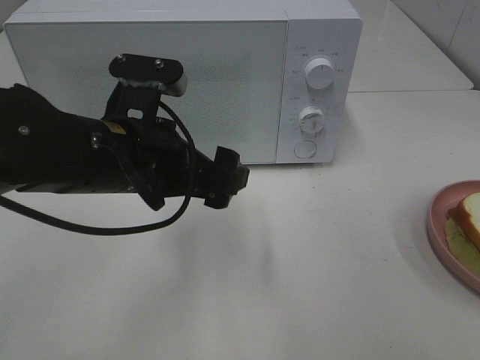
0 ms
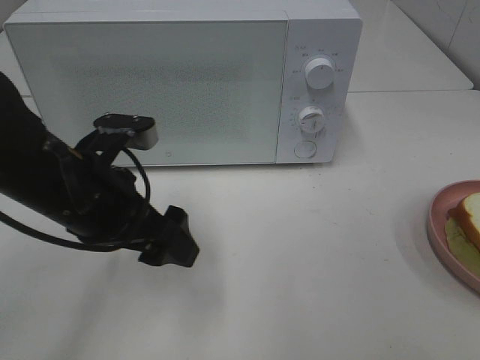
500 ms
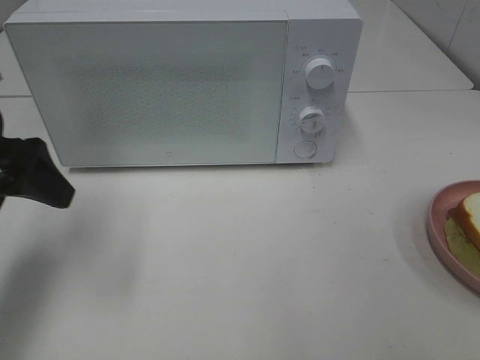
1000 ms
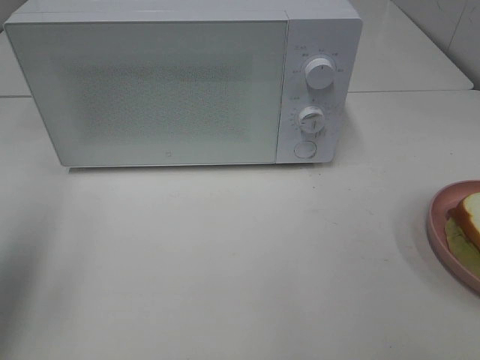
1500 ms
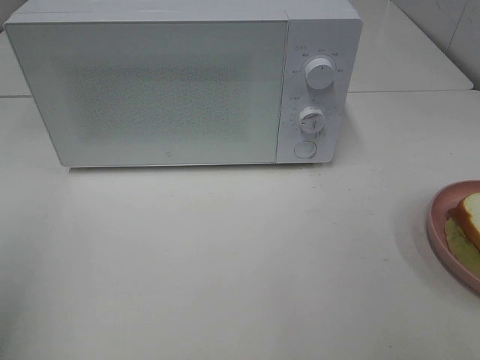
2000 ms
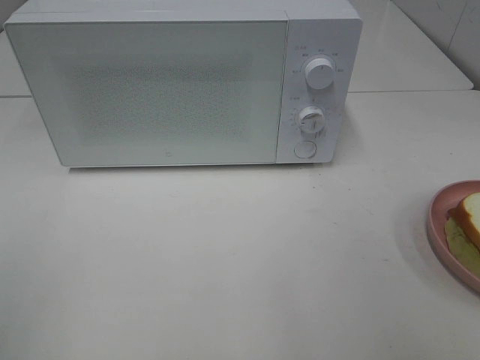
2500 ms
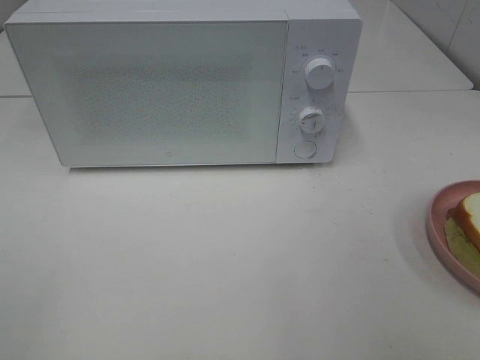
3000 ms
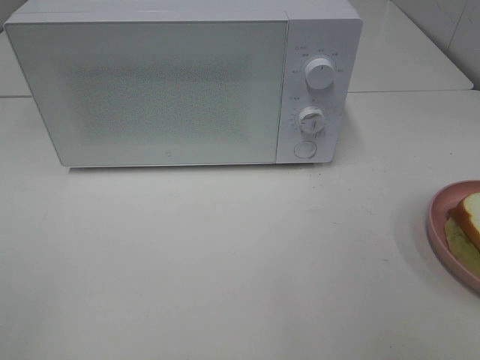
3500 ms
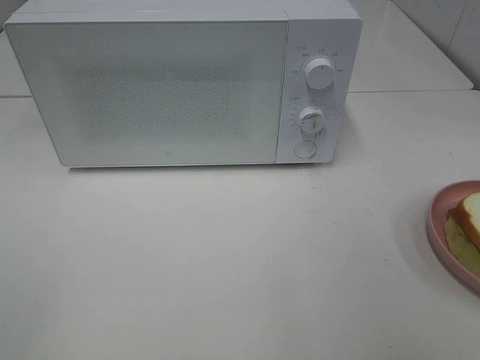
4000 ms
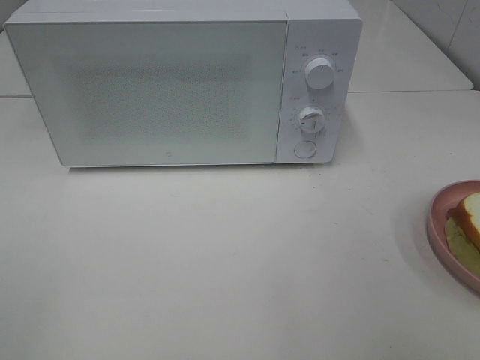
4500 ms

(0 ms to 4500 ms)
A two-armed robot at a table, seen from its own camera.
Task of the whole recording: Heat Sandwich.
0 ms - 2000 ms: The left gripper is displaced to the left, backward and upward by about 30 cm.

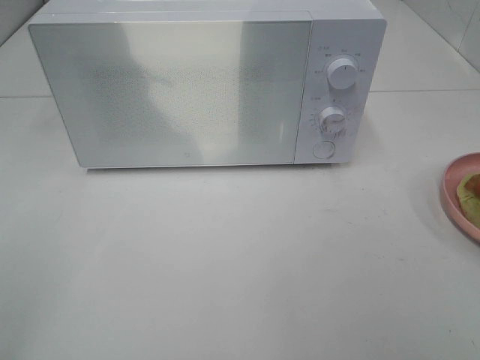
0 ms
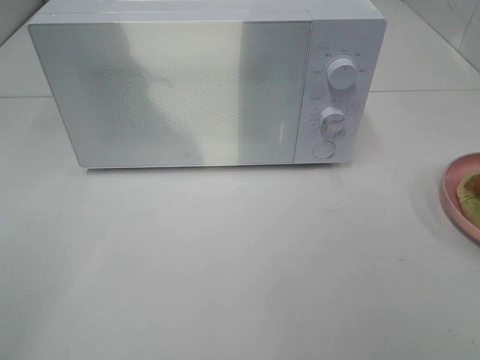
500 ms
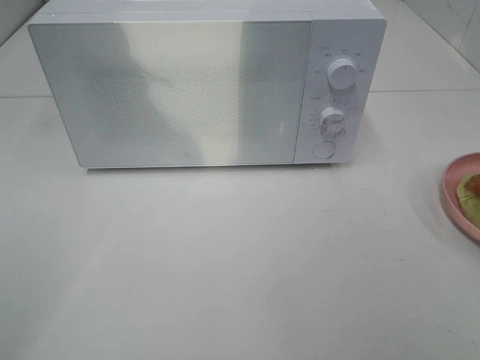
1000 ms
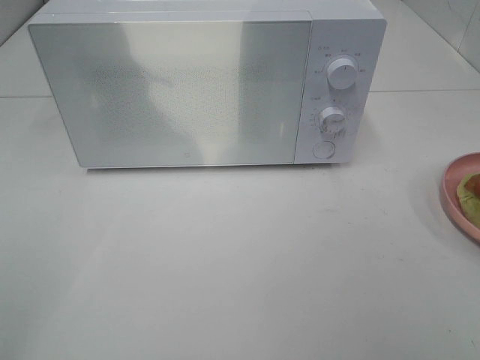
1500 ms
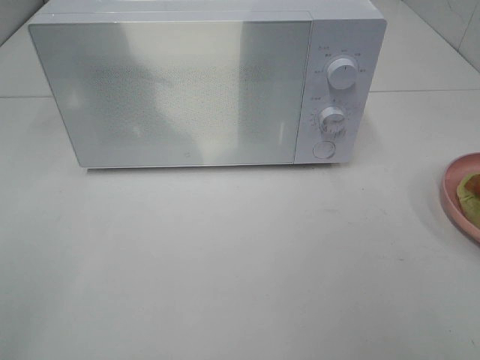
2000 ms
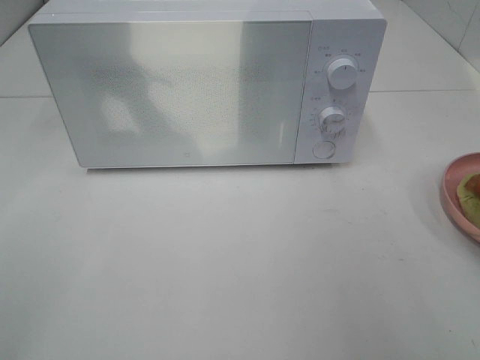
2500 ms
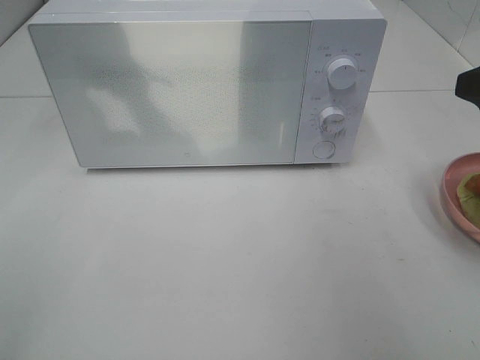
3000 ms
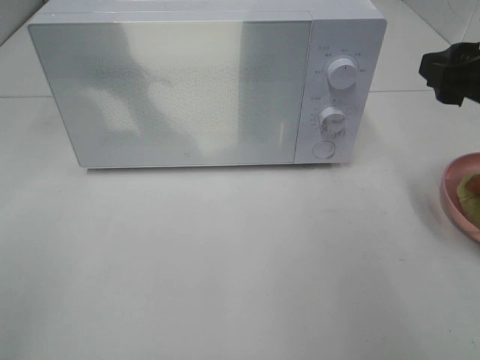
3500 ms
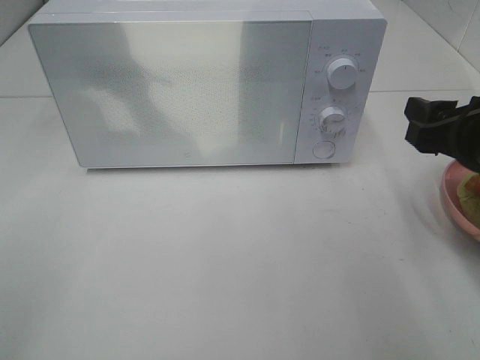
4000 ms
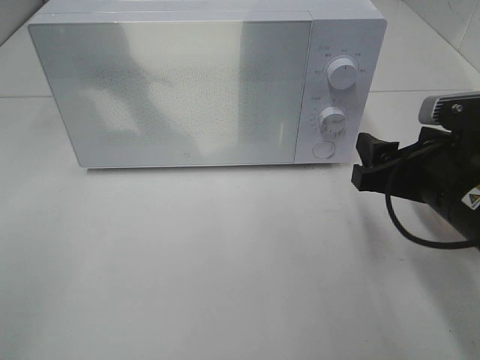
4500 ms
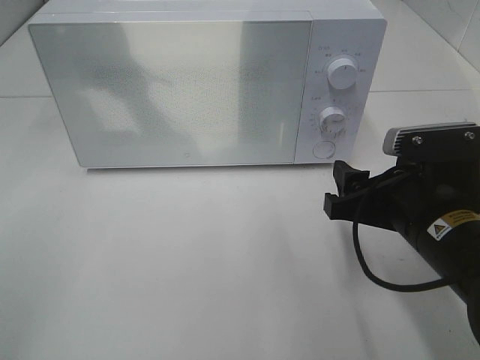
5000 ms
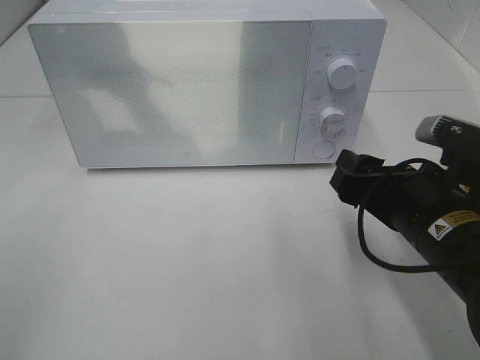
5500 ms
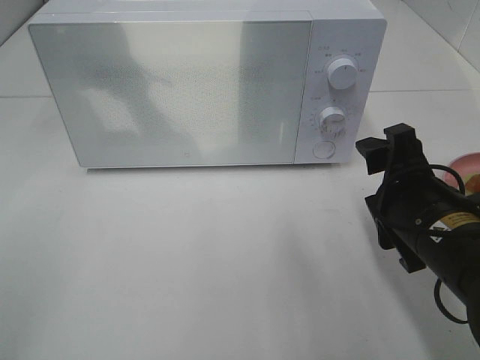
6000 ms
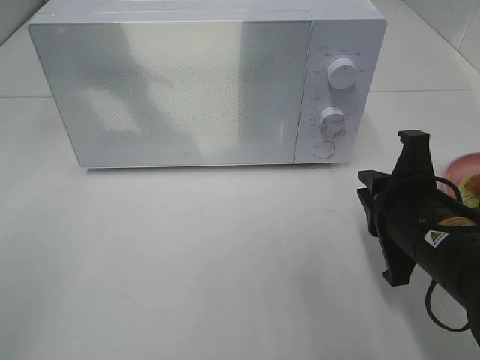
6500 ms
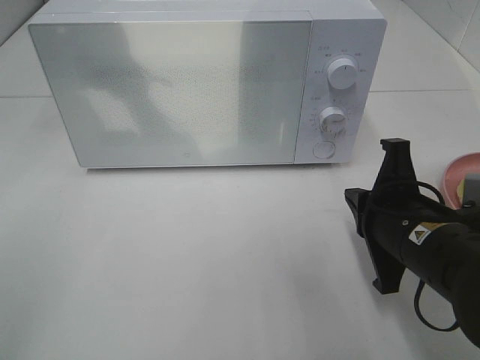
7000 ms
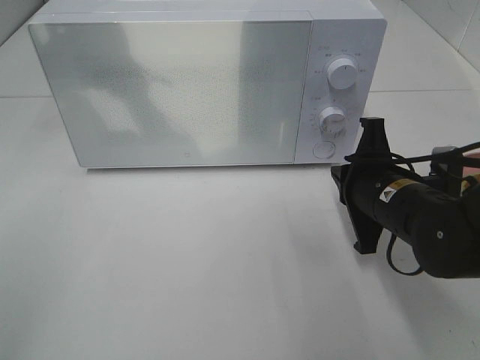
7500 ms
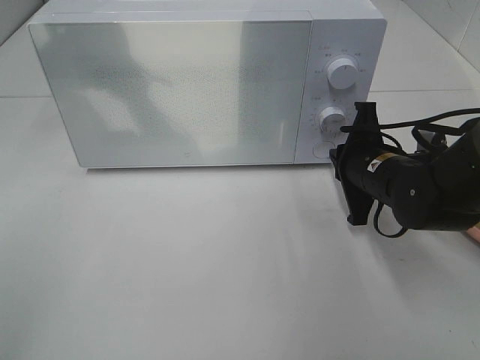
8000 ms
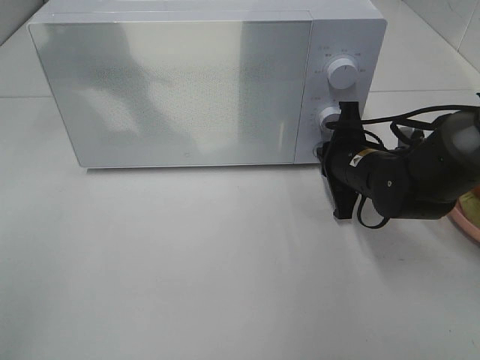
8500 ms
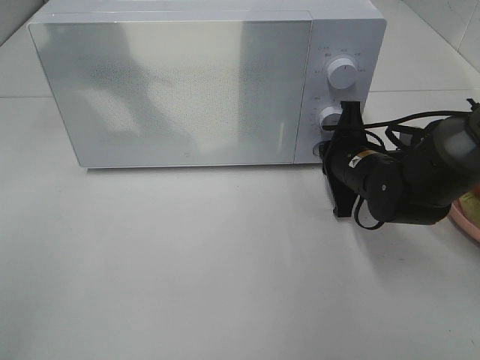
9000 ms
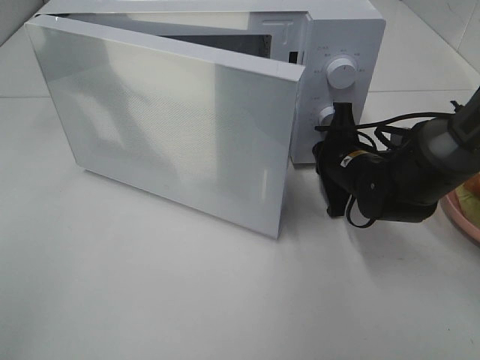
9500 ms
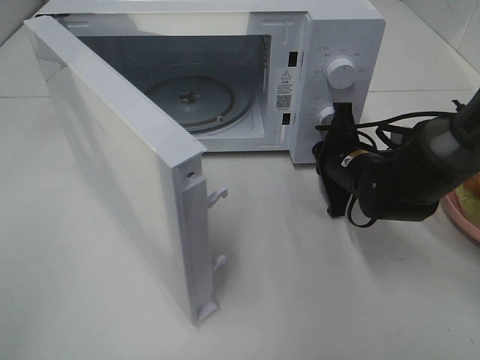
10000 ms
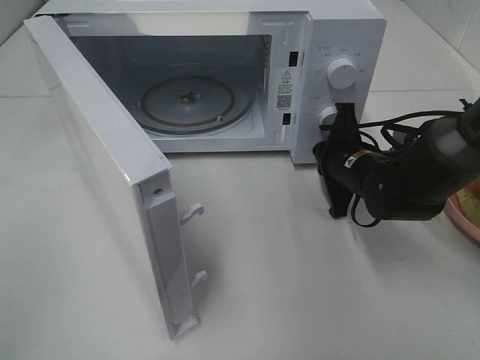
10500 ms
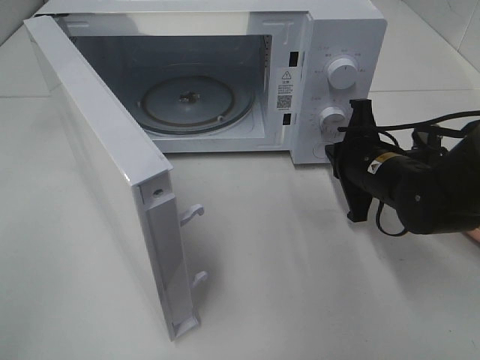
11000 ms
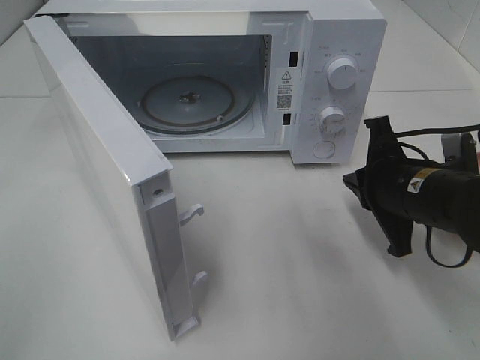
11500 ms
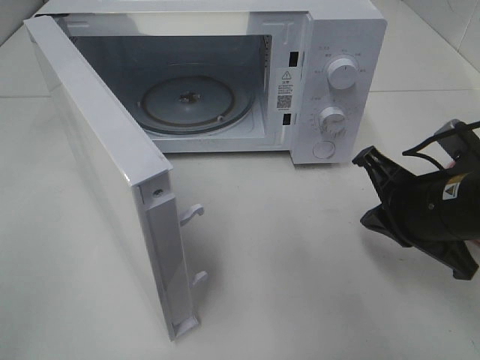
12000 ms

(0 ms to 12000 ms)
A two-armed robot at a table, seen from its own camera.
Task of the whole recording: Heat Sandwich.
Step, 0 ms - 11000 ms: Right hand: press the switch.
2000 ms - 4000 ms: The right gripper moves forward and downward, roughly 20 cm.
4000 ms - 6000 ms: The right gripper heads to the left and downward, covering about 10 cm.
6000 ms - 8000 ms: The right gripper is displaced forward by about 10 cm, and closes up.
10000 ms - 12000 ms: The right gripper is displaced backward and upward by some 15 cm.

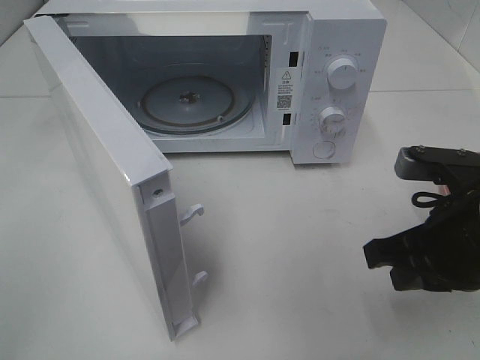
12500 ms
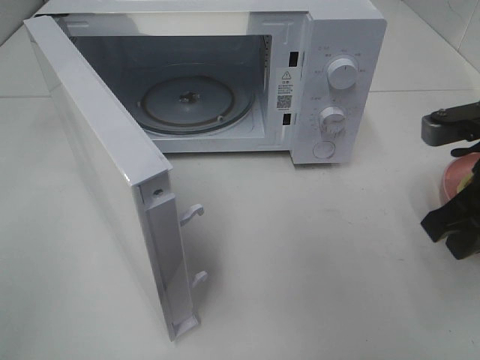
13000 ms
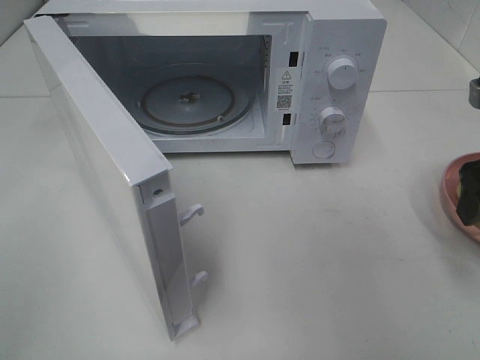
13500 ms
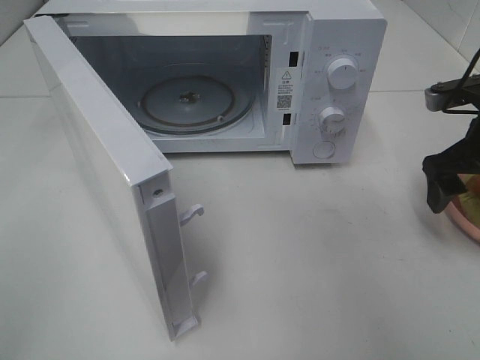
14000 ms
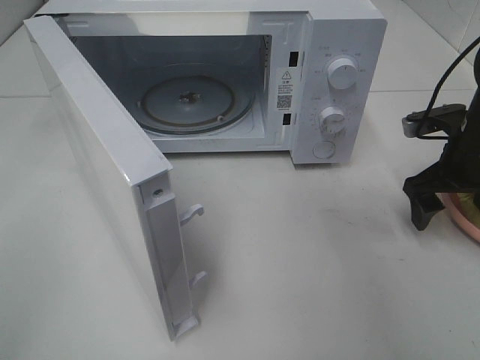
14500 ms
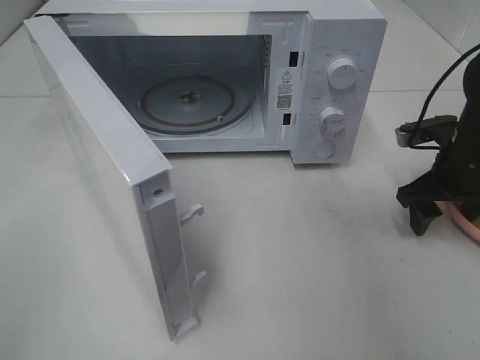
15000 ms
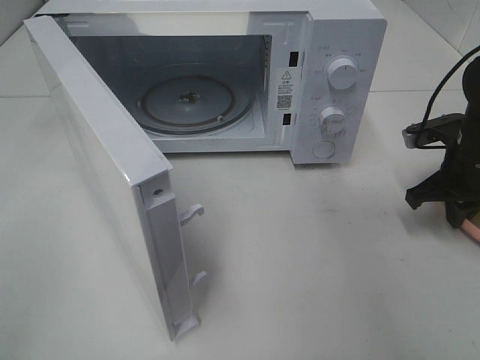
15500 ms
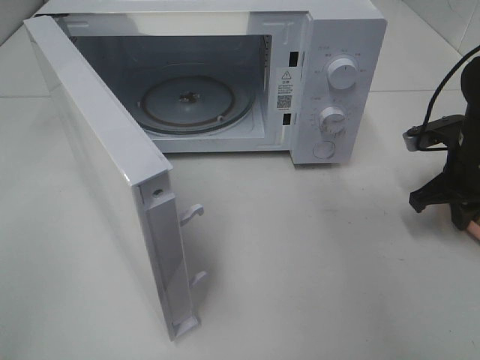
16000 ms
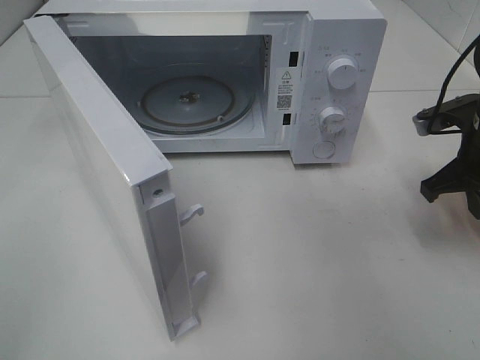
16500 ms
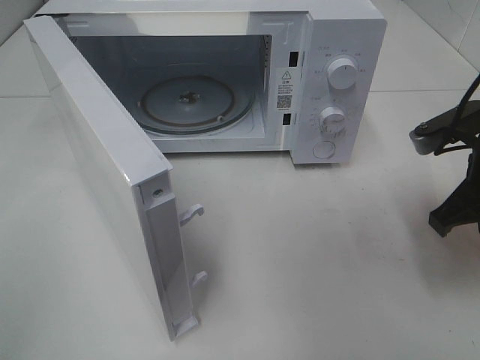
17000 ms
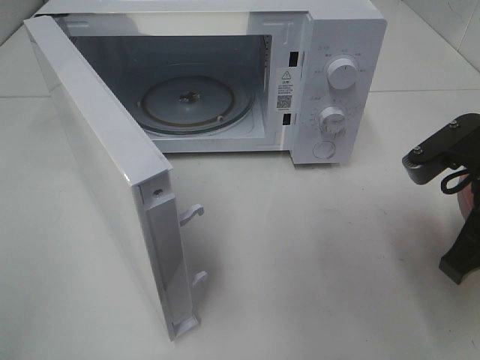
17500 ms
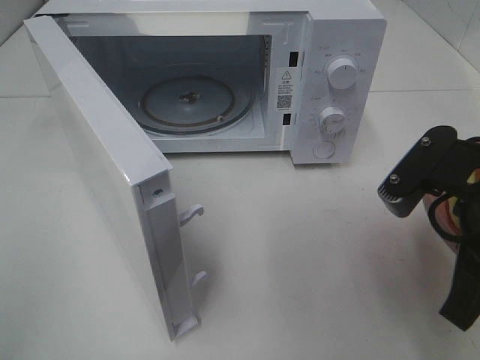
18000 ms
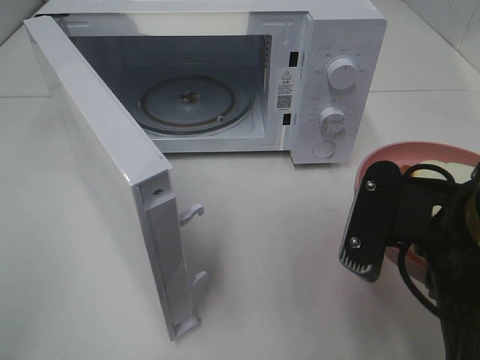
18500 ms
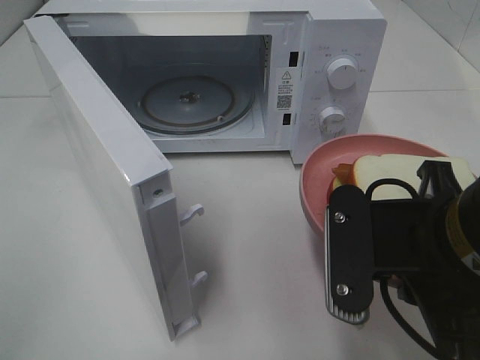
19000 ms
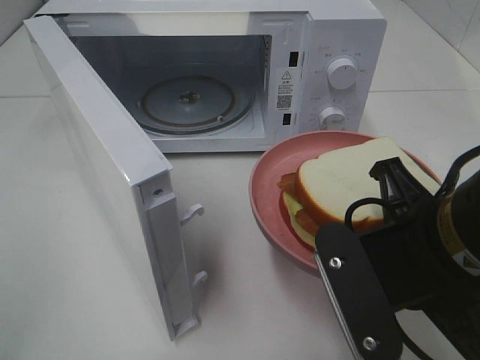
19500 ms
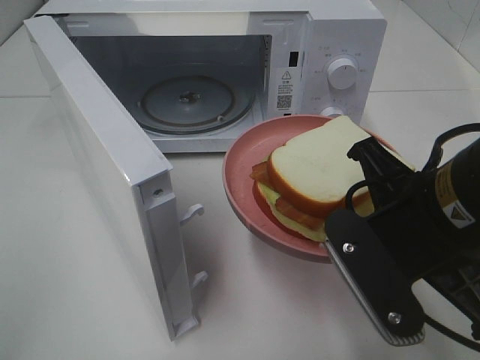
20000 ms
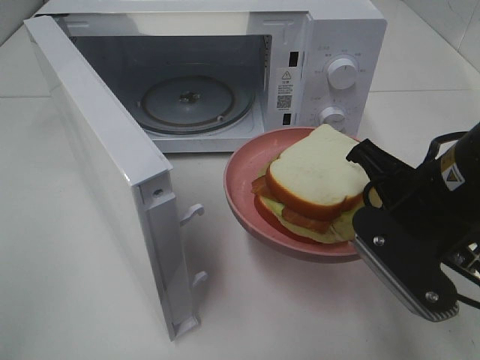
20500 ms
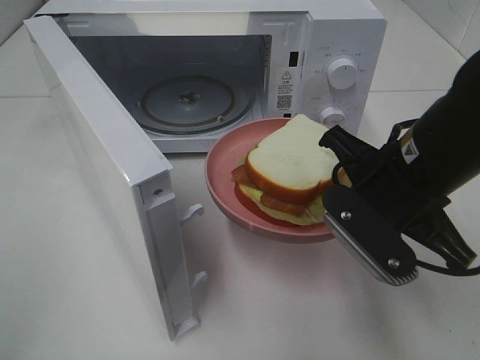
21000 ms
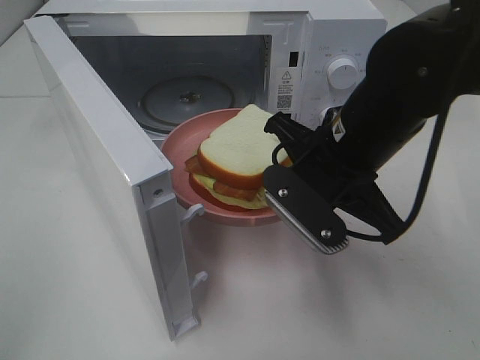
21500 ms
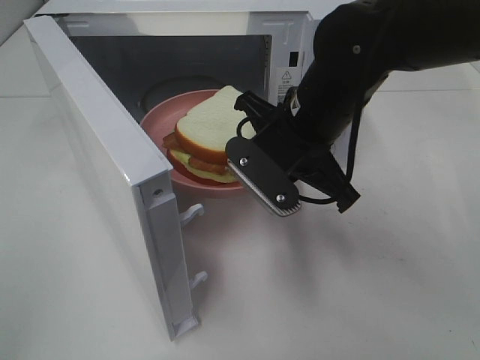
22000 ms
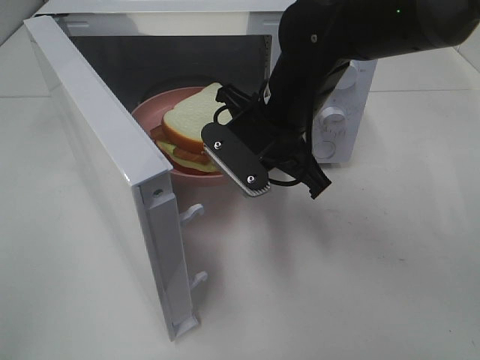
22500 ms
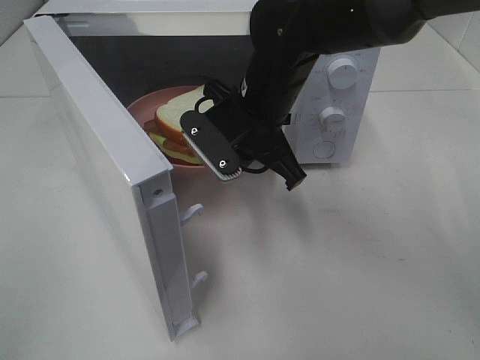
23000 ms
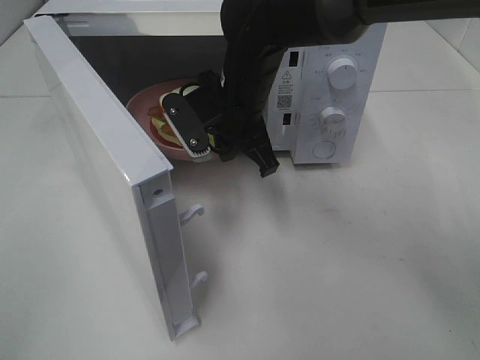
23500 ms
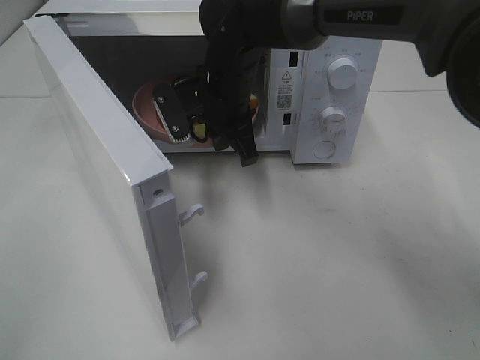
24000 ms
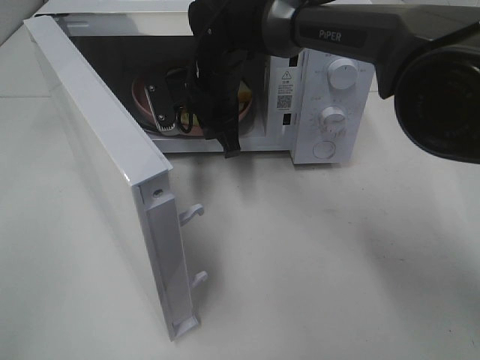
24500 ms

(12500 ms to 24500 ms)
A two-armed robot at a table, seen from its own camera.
Task of the whole recording: Heat Sandwich.
Step, 12500 ms - 15500 ms: Right hand: grab the plate with the sandwich.
12500 ms - 14500 ms: The right gripper is displaced forward and to the right by roughly 15 cm, and opens up.
14500 ms - 16500 ms: The right gripper closes up.
16500 ms - 18500 ms: The right gripper travels backward and to the left by approximately 20 cm.
18500 ms - 20500 ms: The right gripper is displaced forward by approximately 5 cm.
20500 ms - 22500 ms: The right gripper shifts roughly 15 cm forward and to the left.
22500 ms - 24500 ms: The right gripper is displaced forward and to the left by roughly 15 cm.
